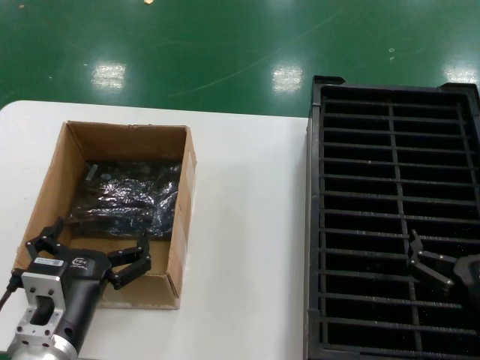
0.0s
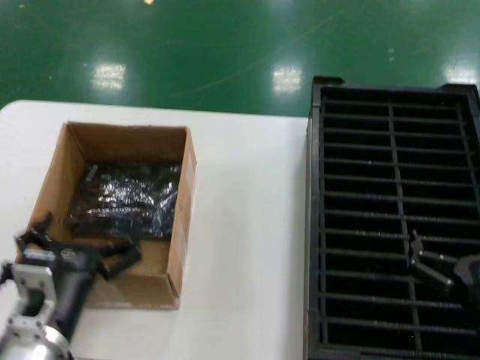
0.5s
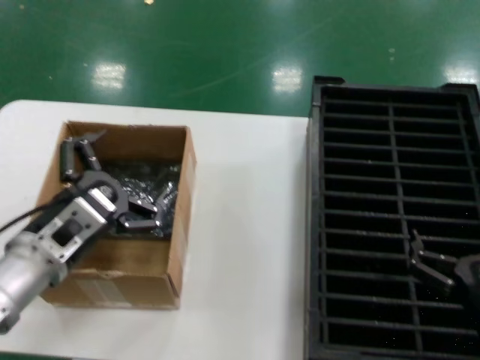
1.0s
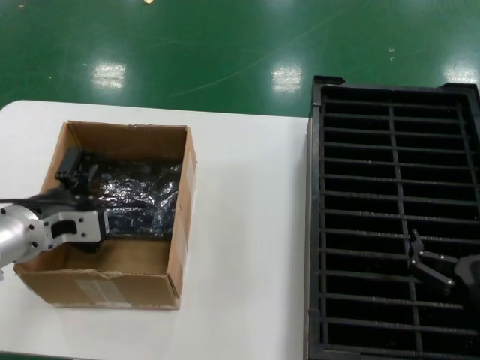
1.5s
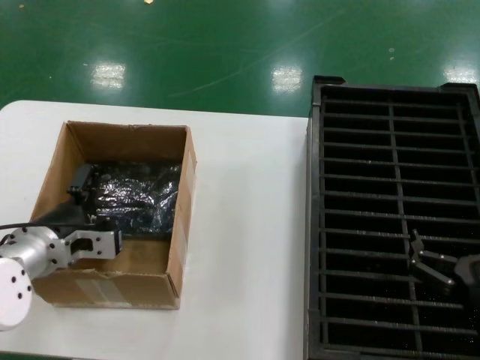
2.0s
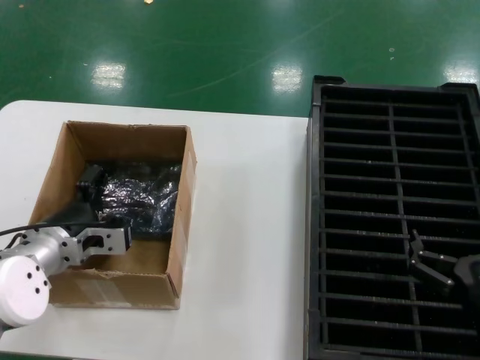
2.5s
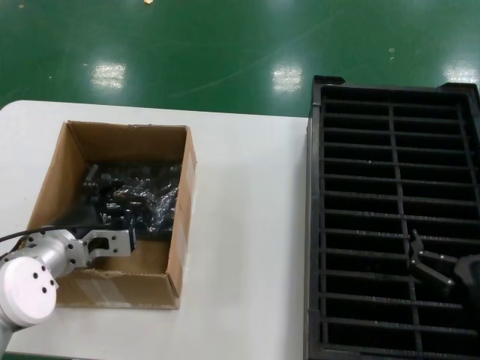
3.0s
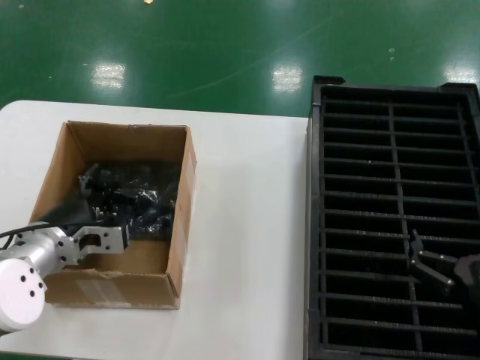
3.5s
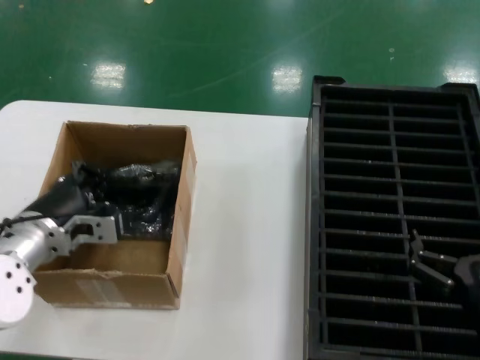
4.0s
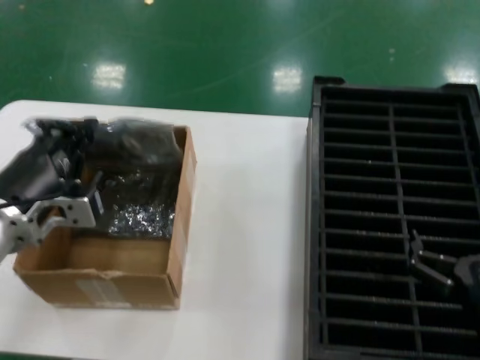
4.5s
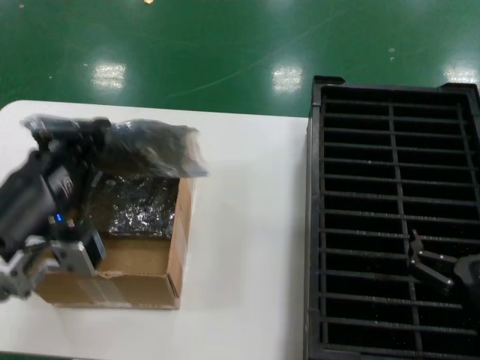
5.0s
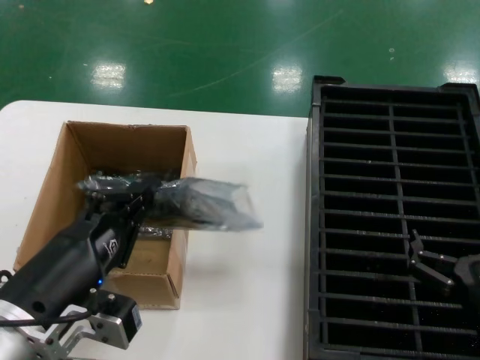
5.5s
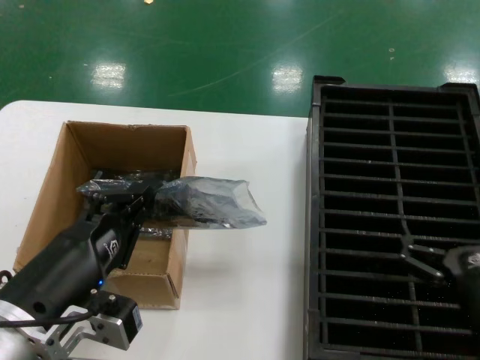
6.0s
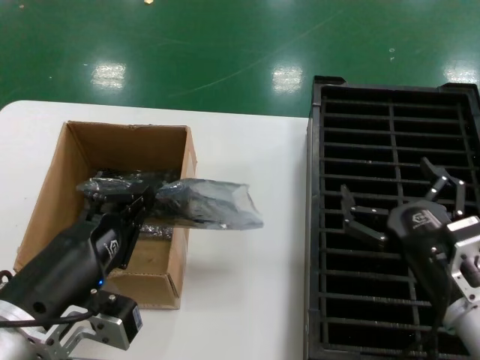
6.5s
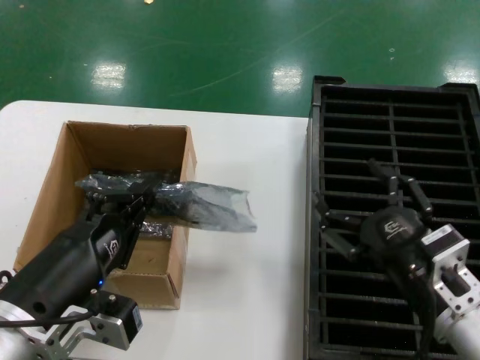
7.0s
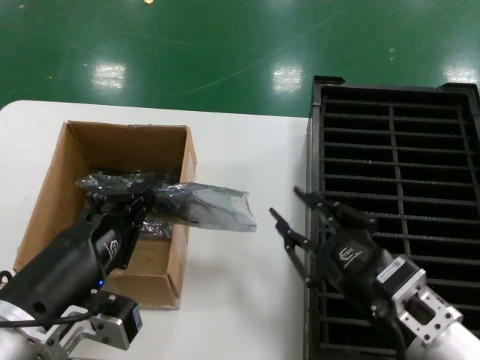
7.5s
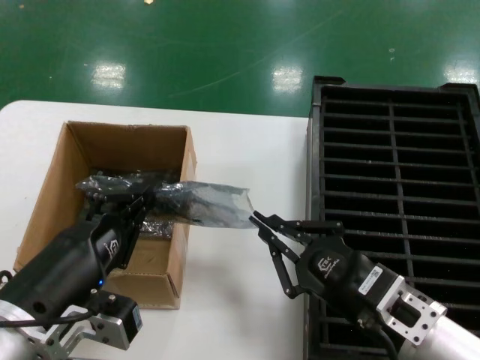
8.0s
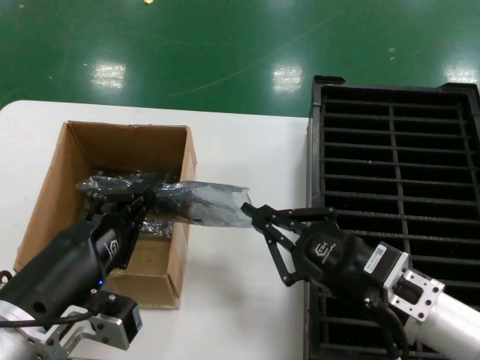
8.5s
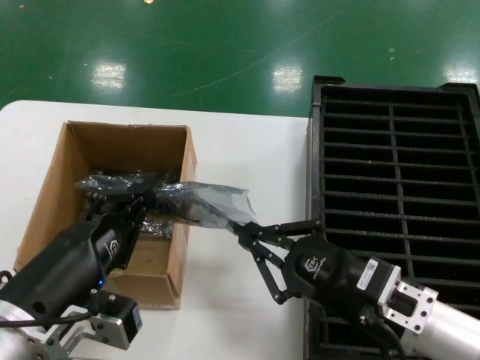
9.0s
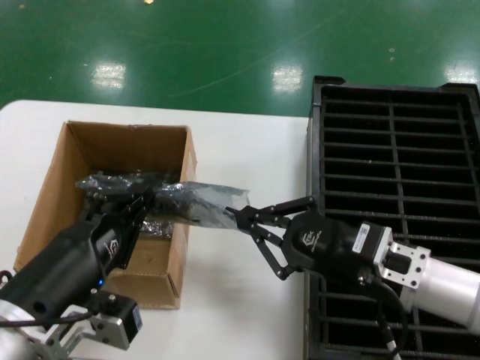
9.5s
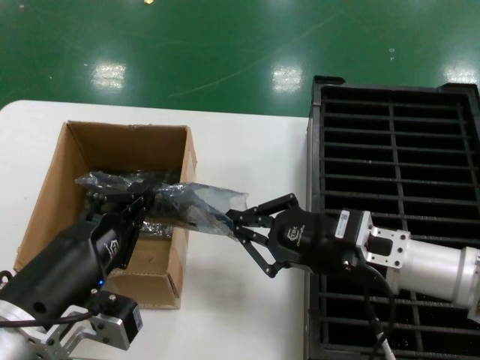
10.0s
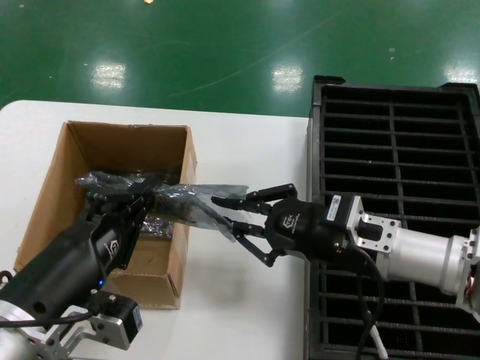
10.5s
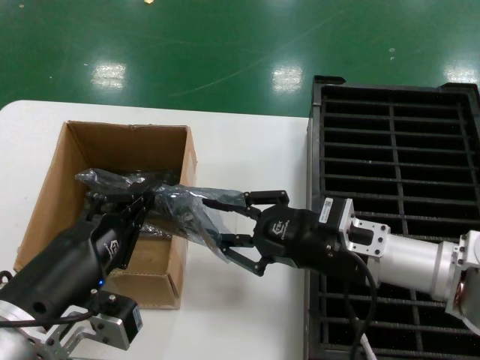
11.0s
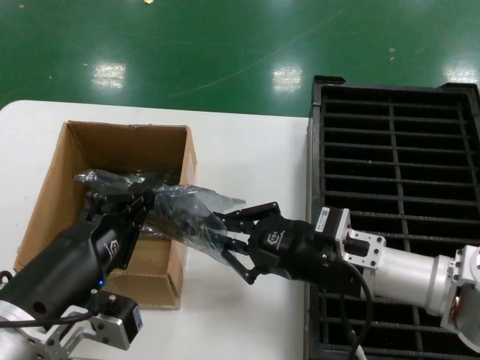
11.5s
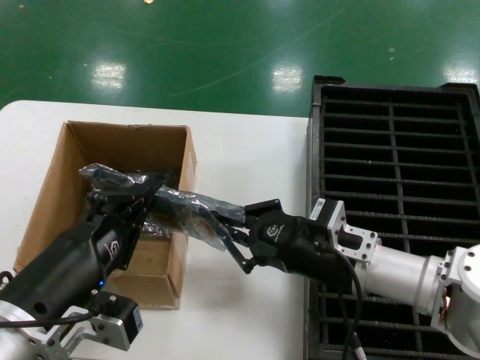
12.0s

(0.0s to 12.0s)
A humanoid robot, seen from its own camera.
Task of the whole recording: take out graphics card from box remove packaging put into black container.
Step, 0.0s - 3.0s: Grasp the bag.
Step, 3.5s - 5.5s: Lift the bag.
0.0s - 2.0s: The left hand moves forward and to the left, some 15 cm.
2.0s - 4.0s: The hands move only a little.
4.0s - 6.0s: The left hand goes some 20 cm backward.
6.0s - 8.0s: The right hand heads to the left, covering roughly 10 cm.
8.0s - 10.0s: The right hand goes approximately 10 cm forward.
10.0s - 12.0s: The hands make only small movements.

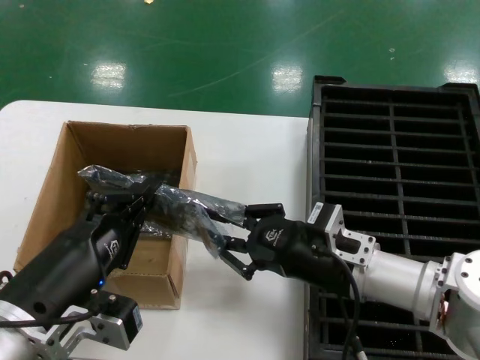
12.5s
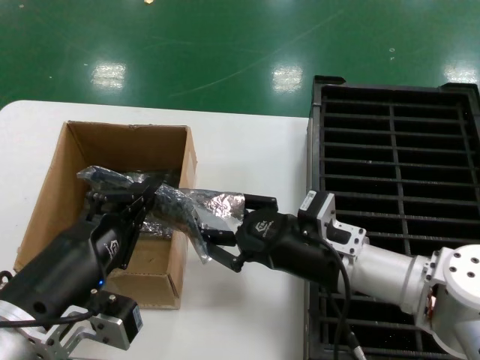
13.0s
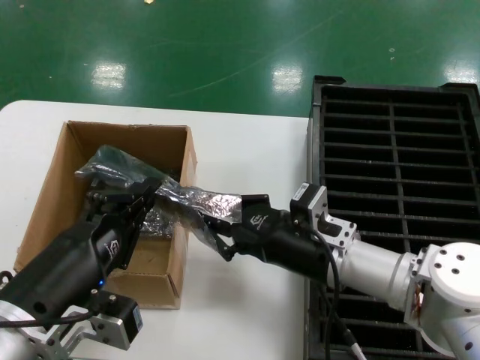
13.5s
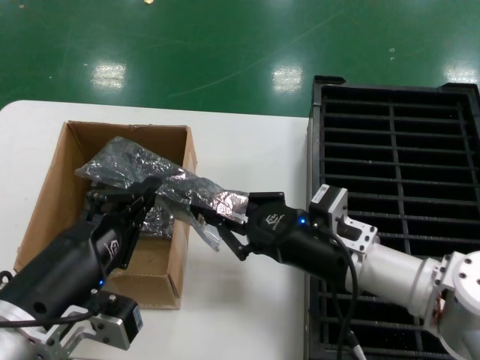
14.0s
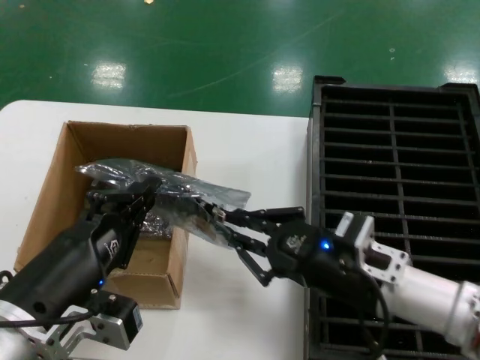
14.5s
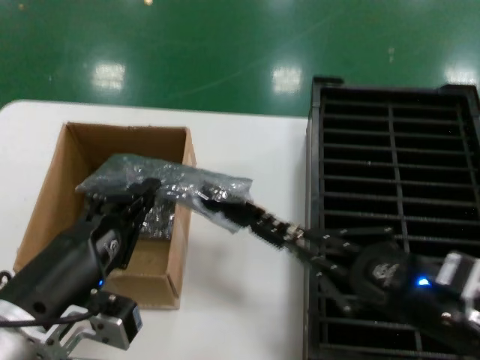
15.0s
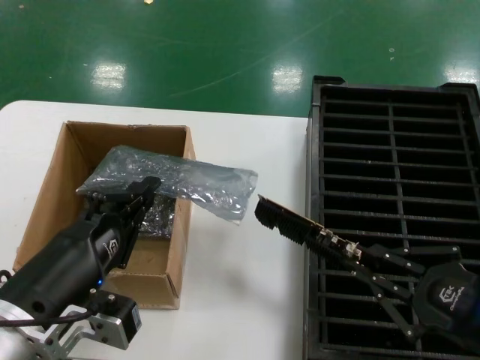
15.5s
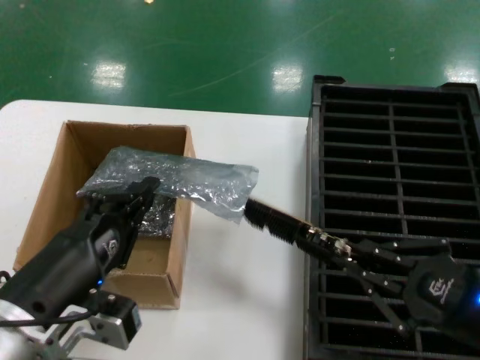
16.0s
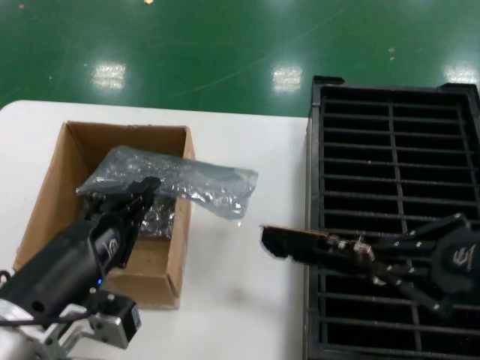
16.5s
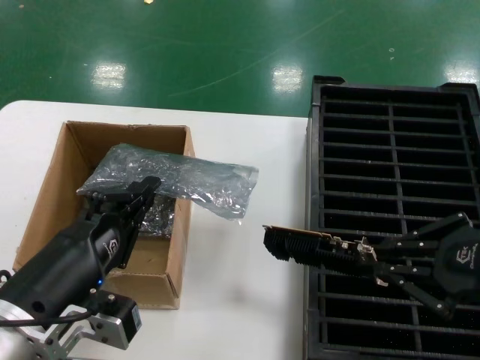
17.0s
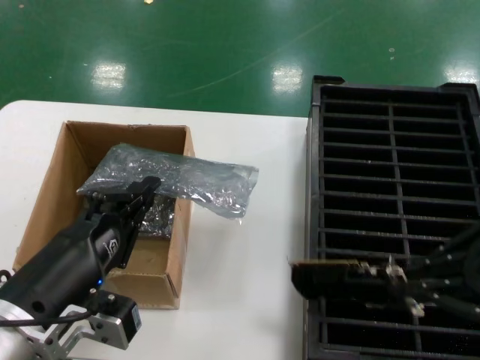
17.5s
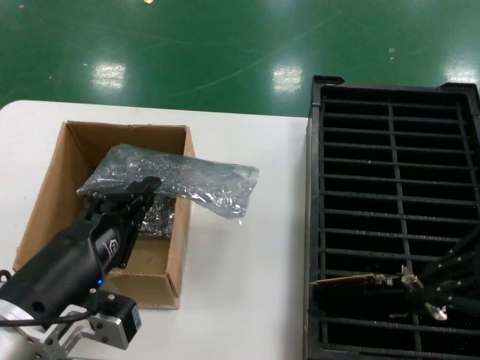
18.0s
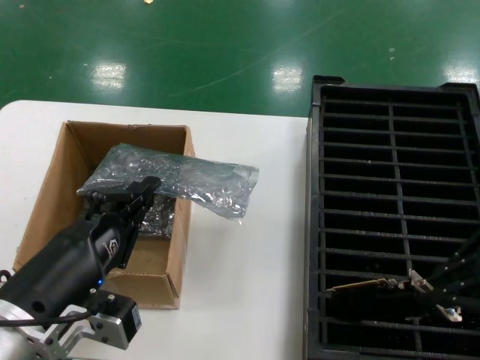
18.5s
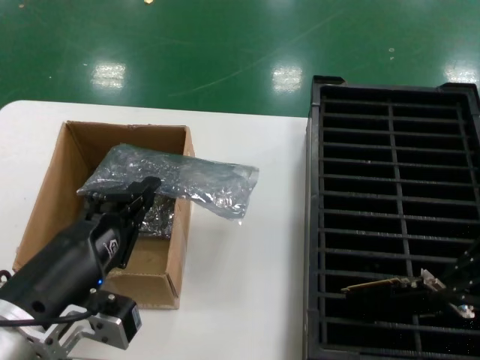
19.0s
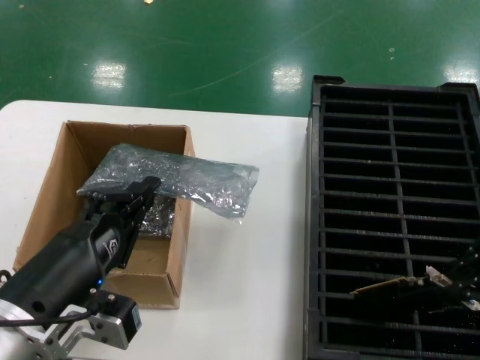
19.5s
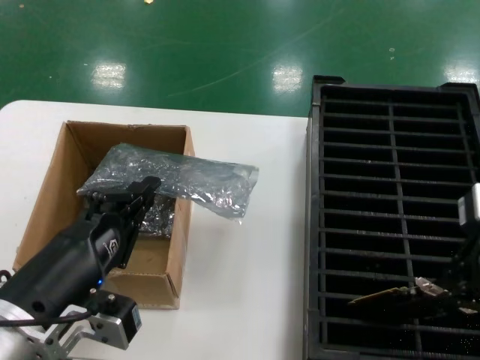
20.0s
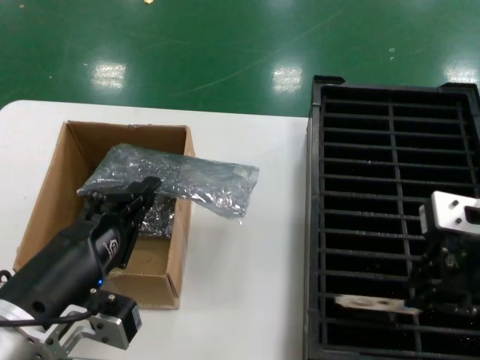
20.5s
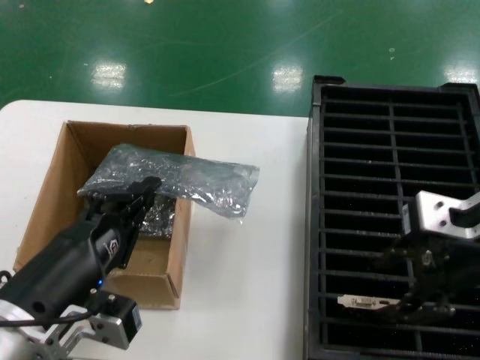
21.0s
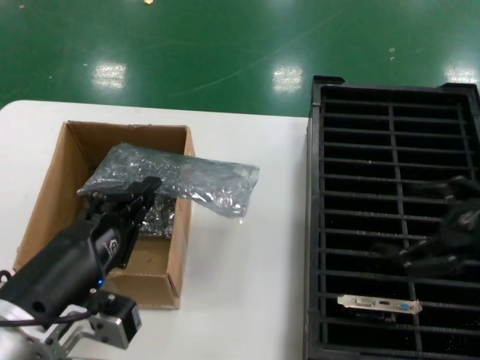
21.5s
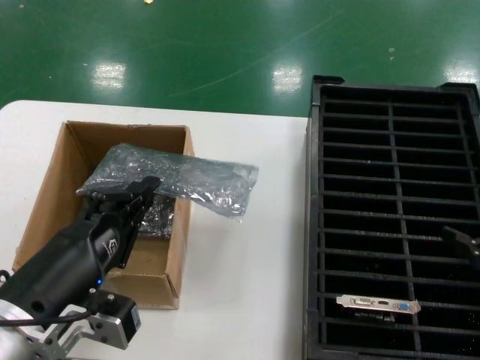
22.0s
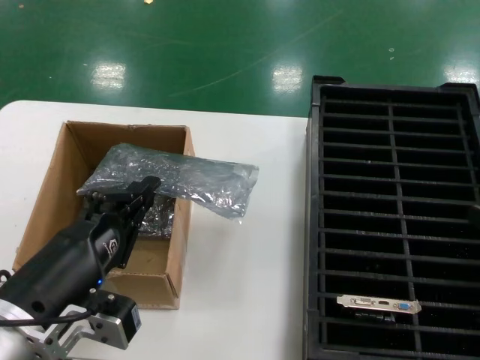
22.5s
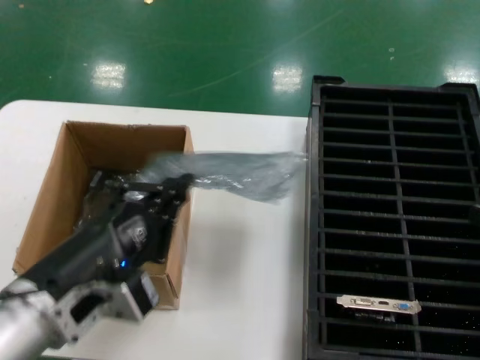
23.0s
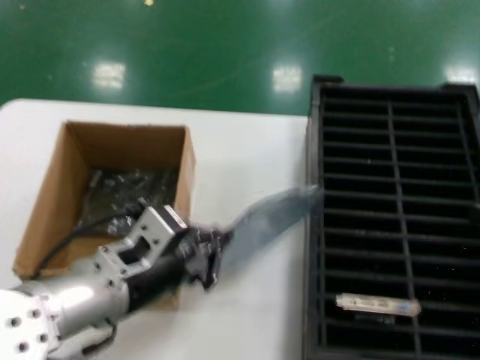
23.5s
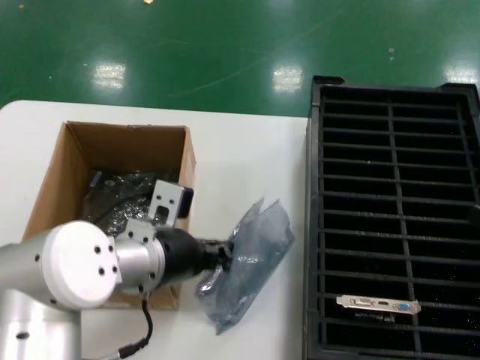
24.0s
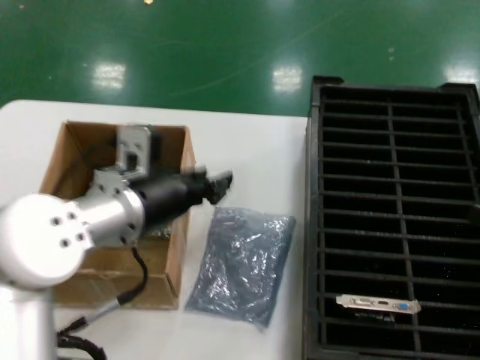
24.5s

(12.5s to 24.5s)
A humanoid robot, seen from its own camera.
Task of the whole recording: take out graphics card from box remove packaging put into black container.
Step, 12.5s - 15.5s: Take out the hard disk of the bag.
Step, 16.0s - 21.0s: Place the hard disk in the hard disk enclosure.
12.5s - 14.5s: The hands make only small movements.
14.5s - 16.5s: The right hand shifts approximately 20 cm upward, to the right and backward.
16.5s - 18.5s: The right hand heads forward and upward, covering approximately 10 cm.
18.5s - 20.5s: The right hand moves to the left, approximately 5 cm.
20.5s - 22.5s: The right hand moves to the right and downward, some 25 cm.
22.5s - 24.5s: The left hand moves forward, about 15 cm.

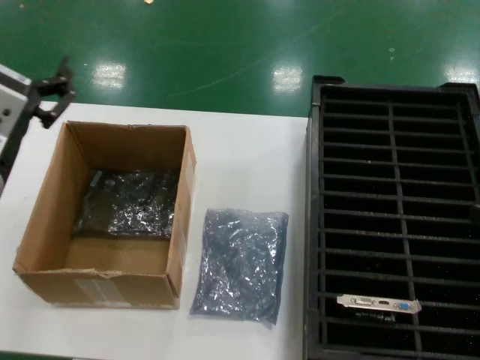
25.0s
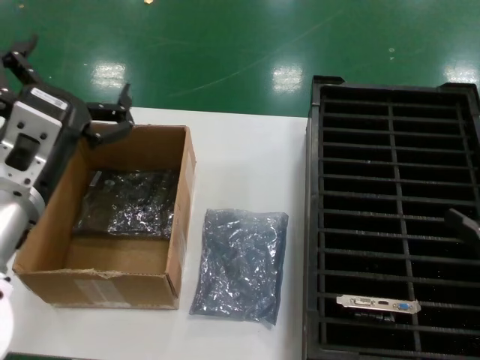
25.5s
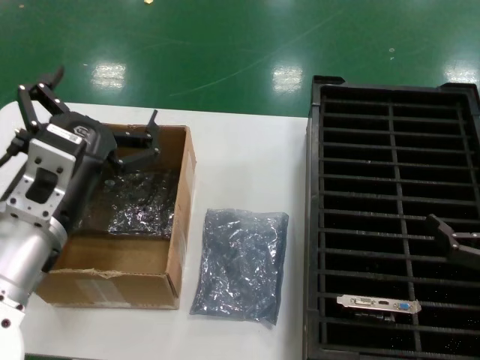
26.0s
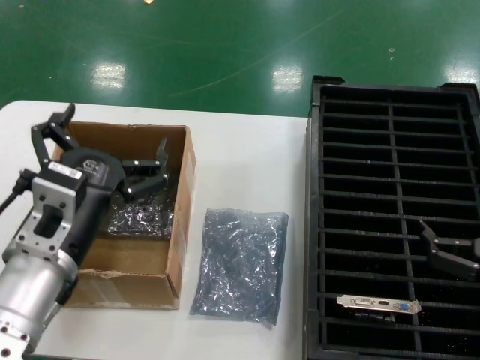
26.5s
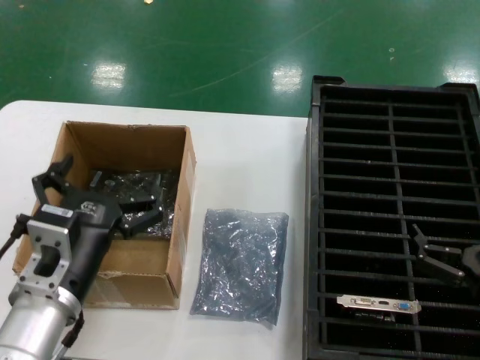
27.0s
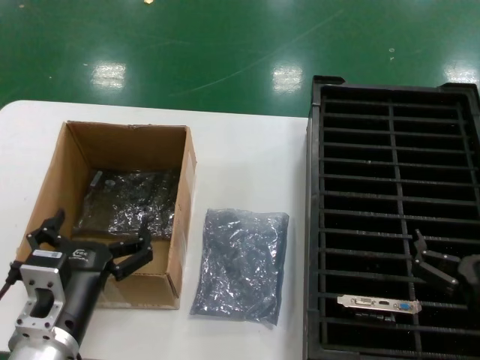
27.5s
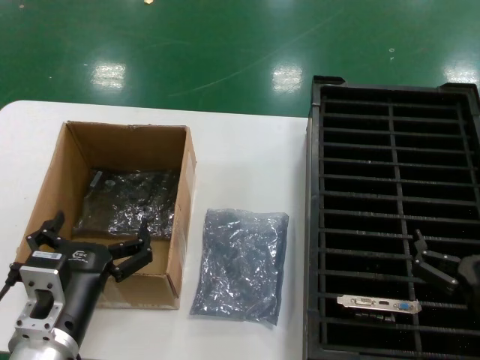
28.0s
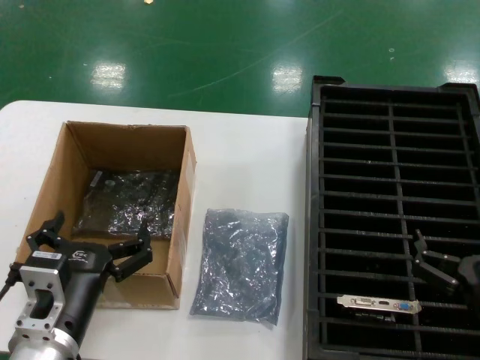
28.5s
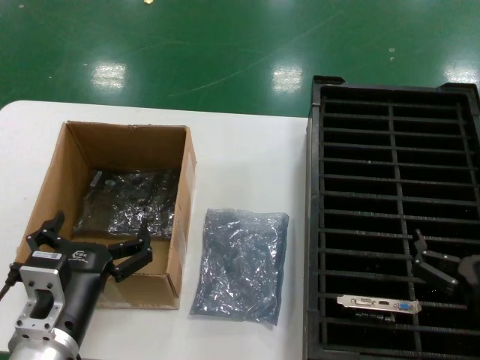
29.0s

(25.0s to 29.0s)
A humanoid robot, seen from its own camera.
Task of the whole recording: take out graphics card from box remove packaging put into black container.
25.0s - 27.0s: The right hand is displaced to the left and downward by some 20 cm. The left hand goes approximately 15 cm downward.
27.0s - 29.0s: The left hand shifts approximately 5 cm downward.
